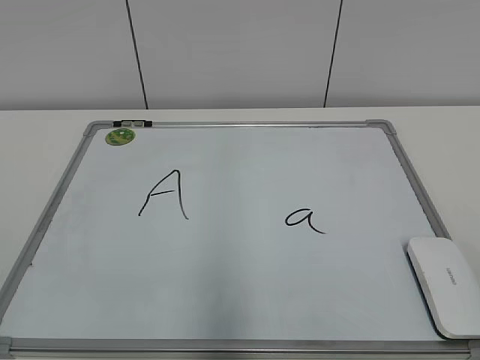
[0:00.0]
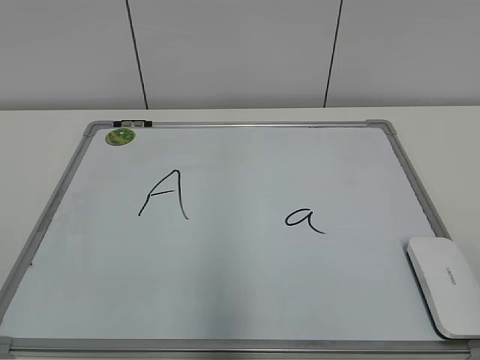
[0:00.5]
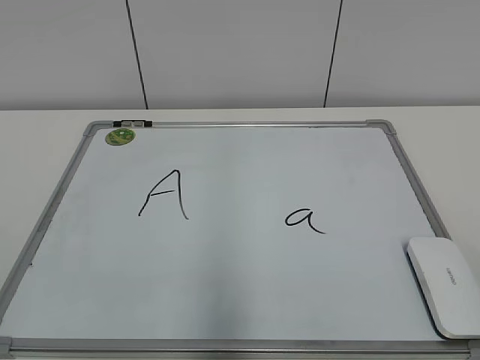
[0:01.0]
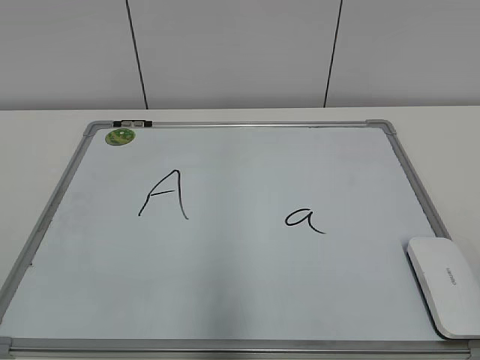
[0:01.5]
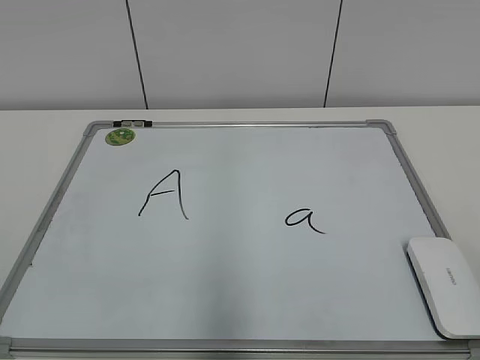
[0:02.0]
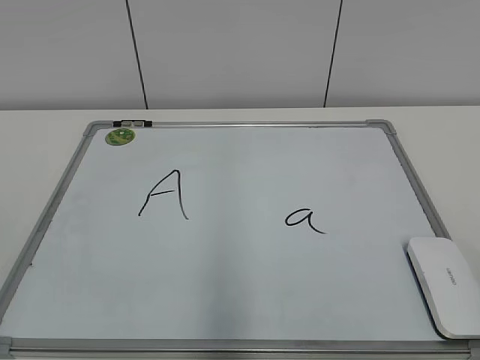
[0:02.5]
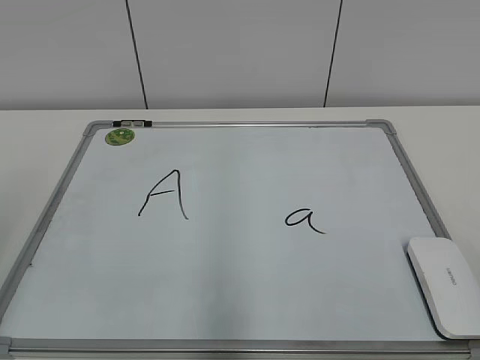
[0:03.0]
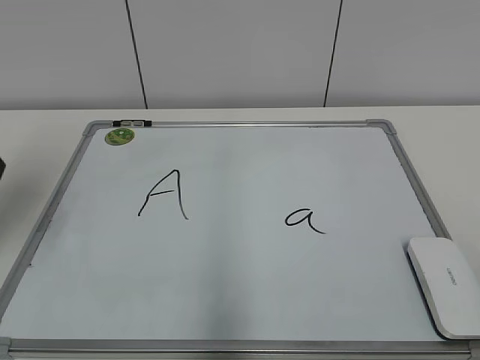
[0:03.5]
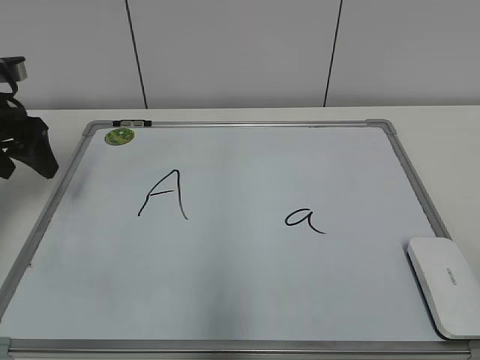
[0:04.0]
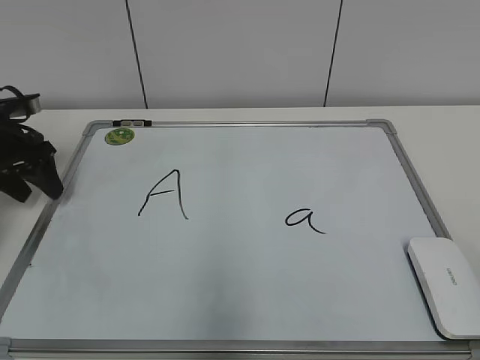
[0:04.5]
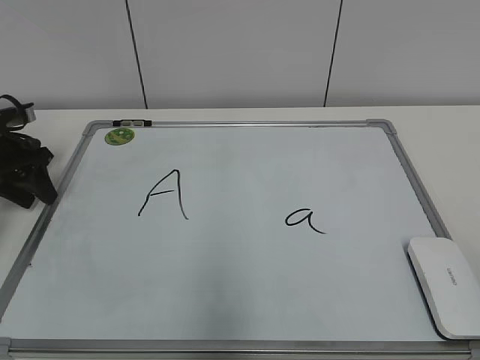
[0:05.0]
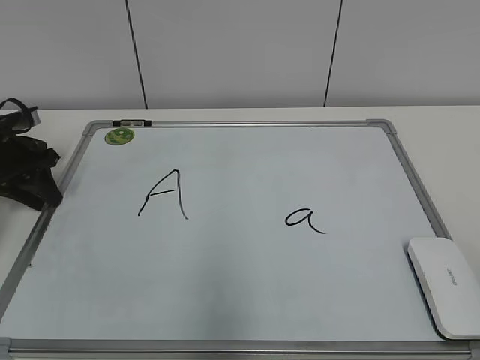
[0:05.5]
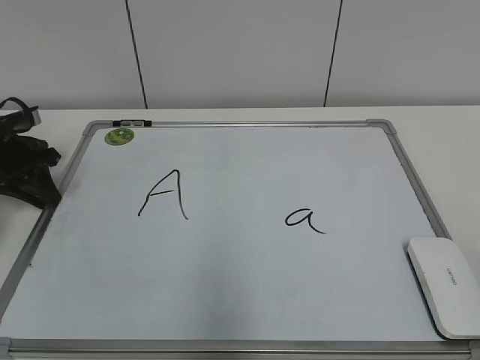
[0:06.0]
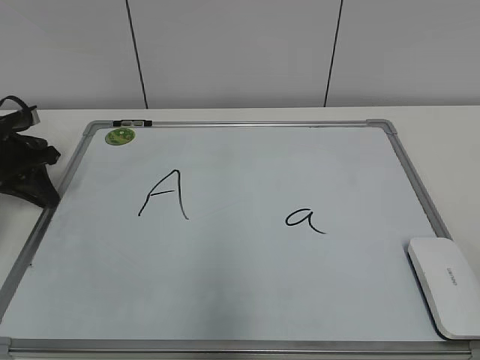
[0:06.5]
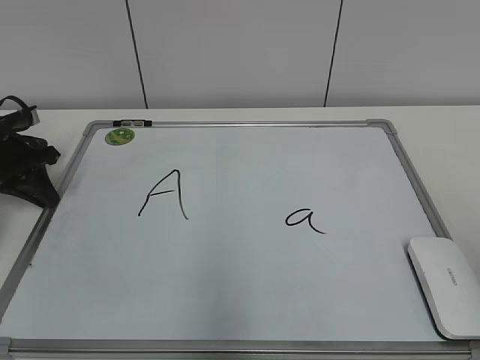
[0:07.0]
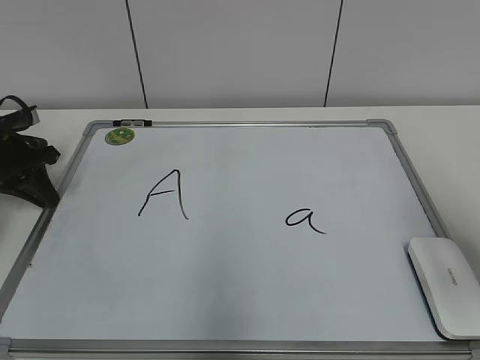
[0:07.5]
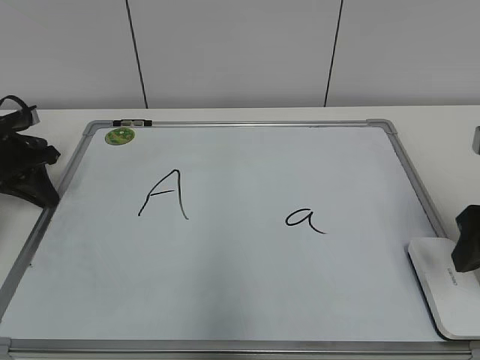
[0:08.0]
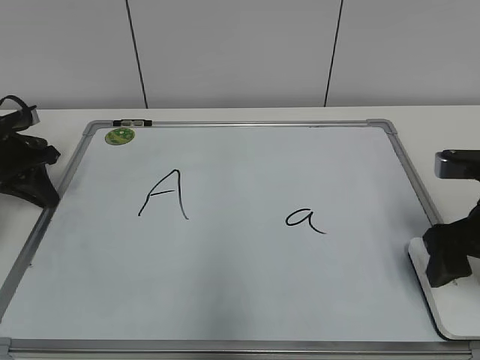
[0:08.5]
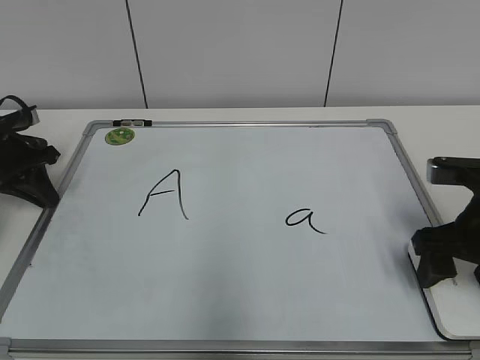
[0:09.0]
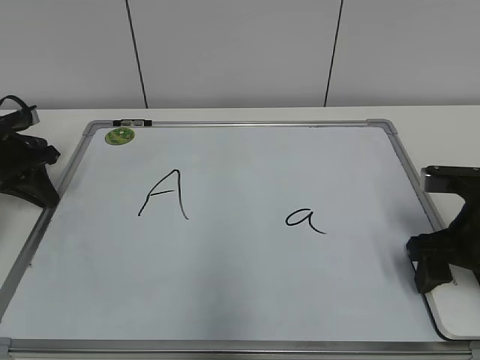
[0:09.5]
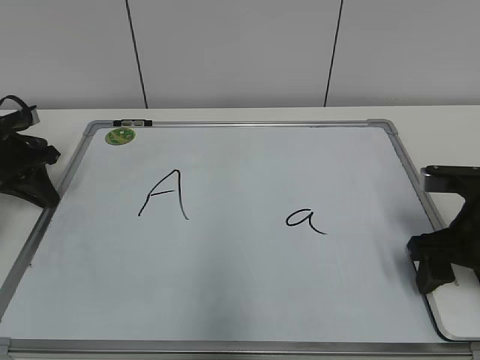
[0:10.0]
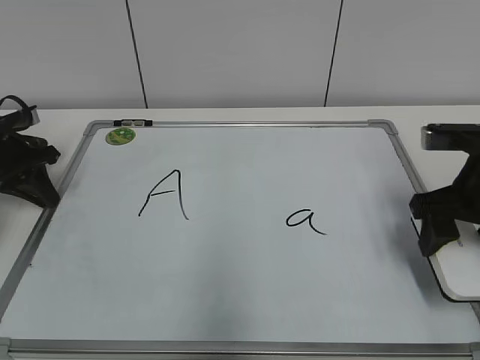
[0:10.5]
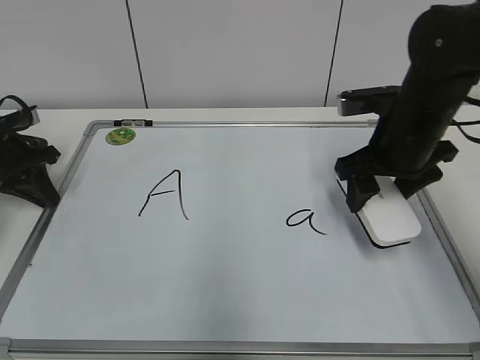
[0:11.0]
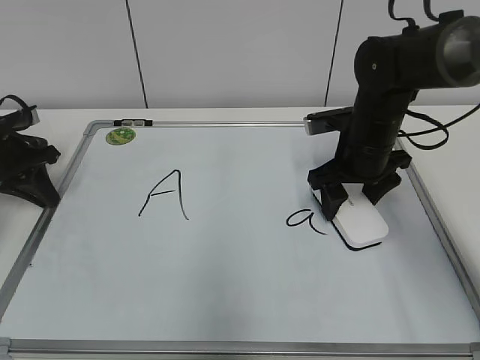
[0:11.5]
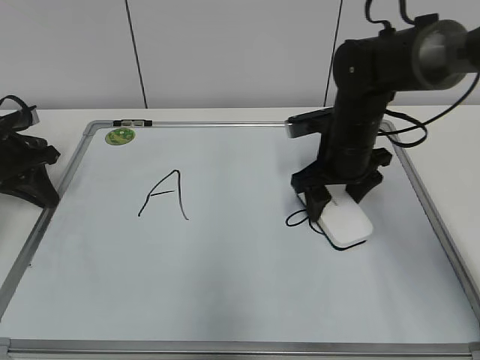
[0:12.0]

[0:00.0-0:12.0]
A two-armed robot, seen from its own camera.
Task of the whole recording: pick up the eraser on the blackboard and erase the letter "a".
Step, 0.0 to 6.0 s: Hold the drawing board steady with your left hand.
Step, 6.5 to 10.0 s: Grab the eraser with your right hand.
2.0 to 4.0 s: The left gripper goes about 40 cm forward, and opens.
4.0 to 6.0 s: The left gripper shifts about 10 cm downward, and closes its fingers.
6.0 to 8.0 s: The right gripper heads forward, covering roughly 25 cm.
8.0 to 10.0 s: The right gripper moves downward, approximately 5 cm.
10.0 to 12.0 s: The right gripper travels forward and to the left by some 15 cm.

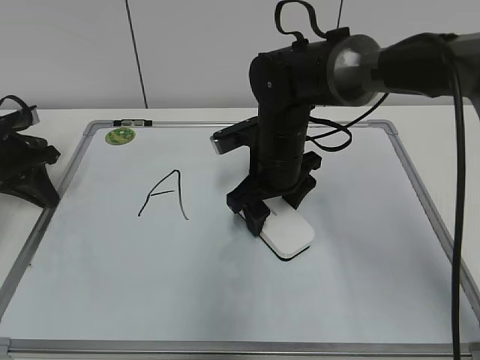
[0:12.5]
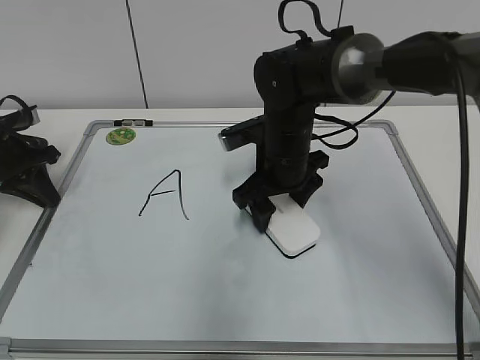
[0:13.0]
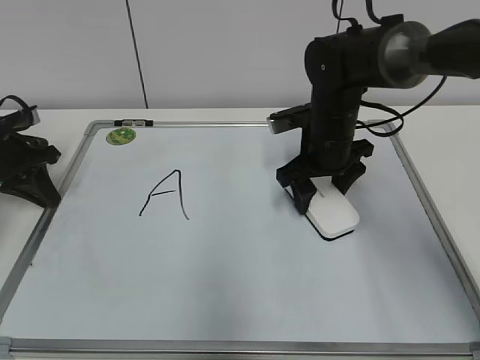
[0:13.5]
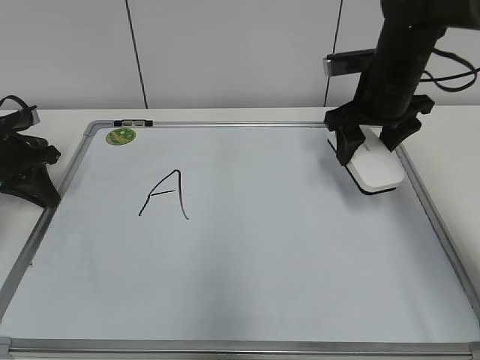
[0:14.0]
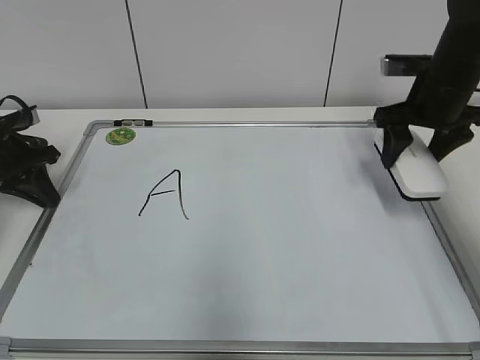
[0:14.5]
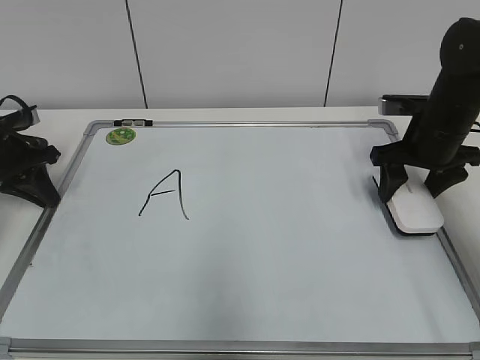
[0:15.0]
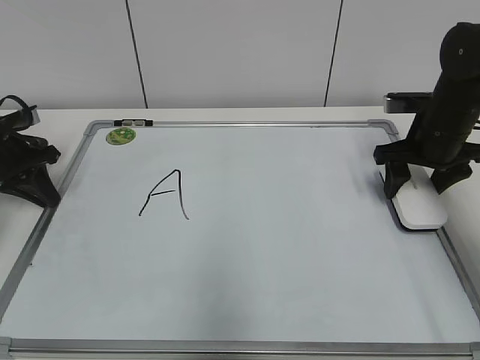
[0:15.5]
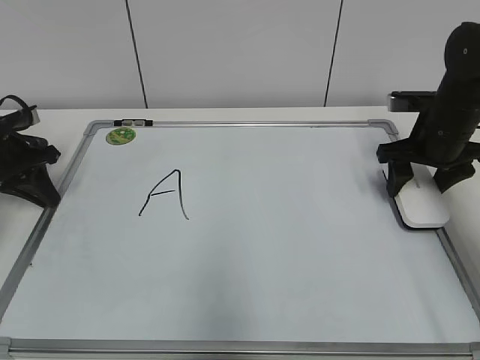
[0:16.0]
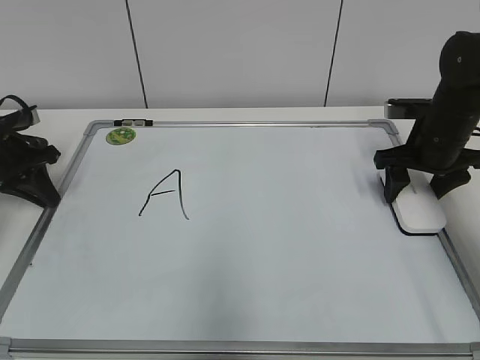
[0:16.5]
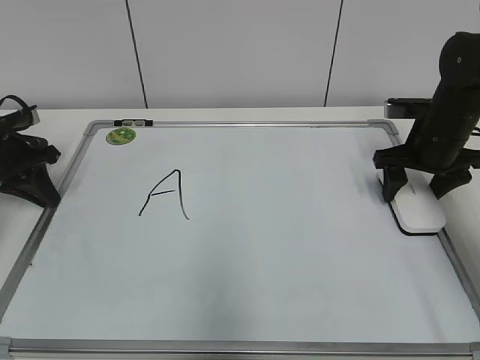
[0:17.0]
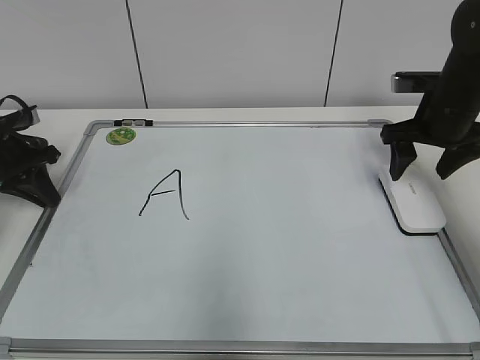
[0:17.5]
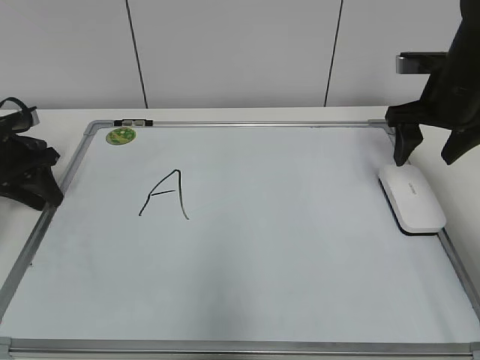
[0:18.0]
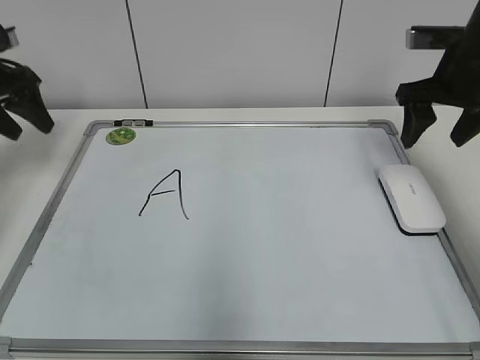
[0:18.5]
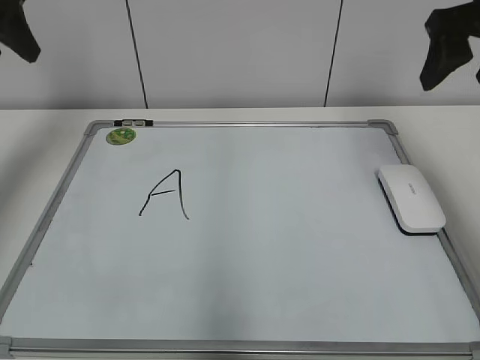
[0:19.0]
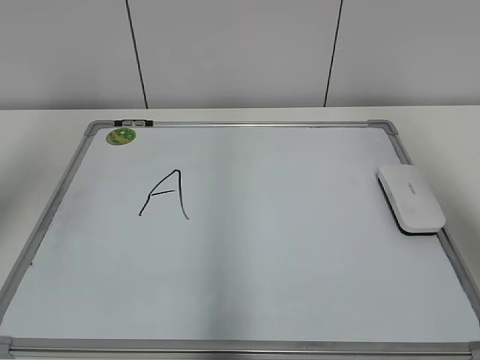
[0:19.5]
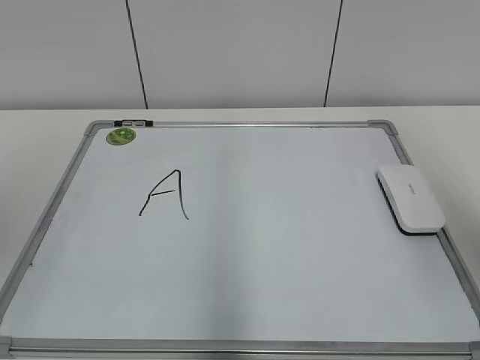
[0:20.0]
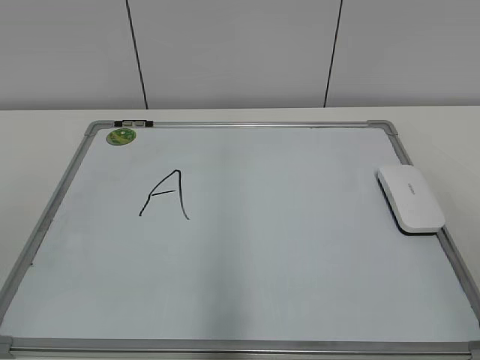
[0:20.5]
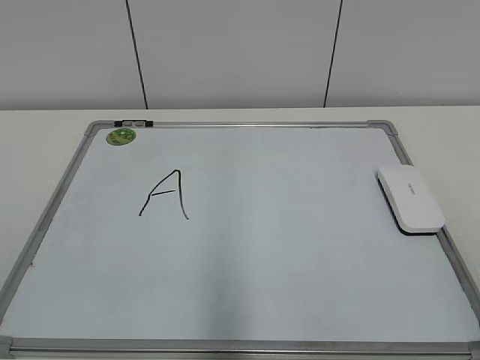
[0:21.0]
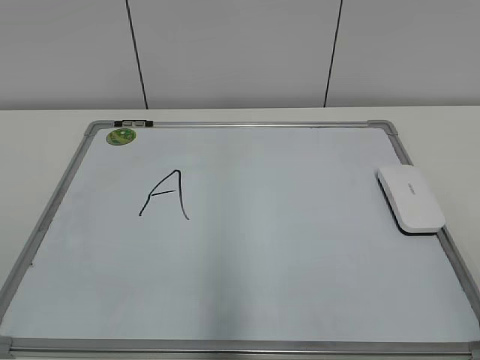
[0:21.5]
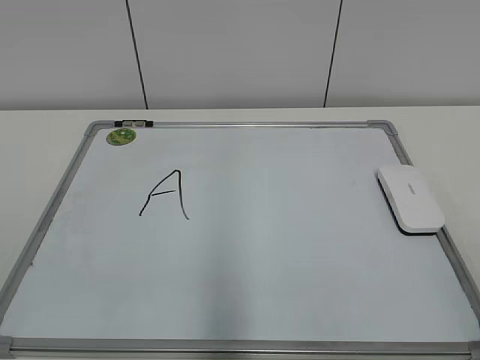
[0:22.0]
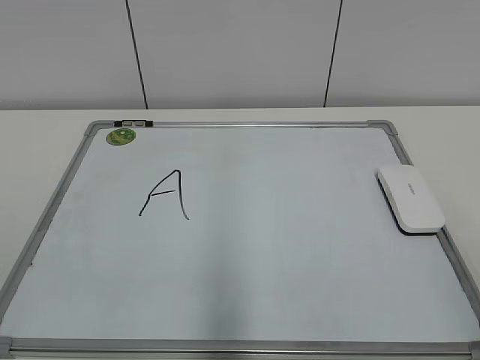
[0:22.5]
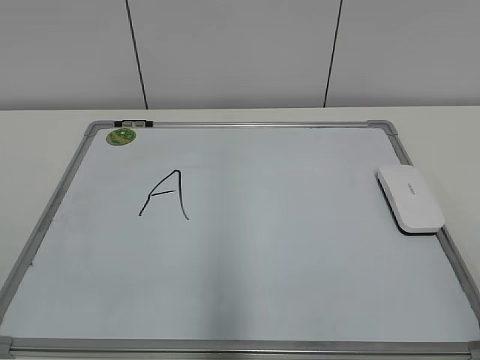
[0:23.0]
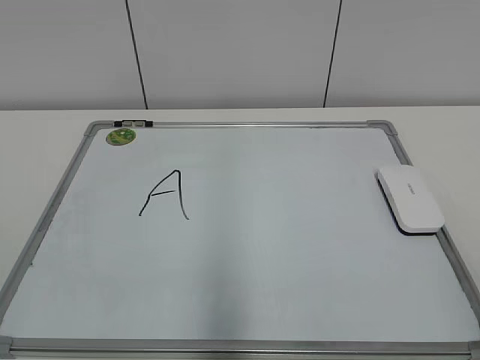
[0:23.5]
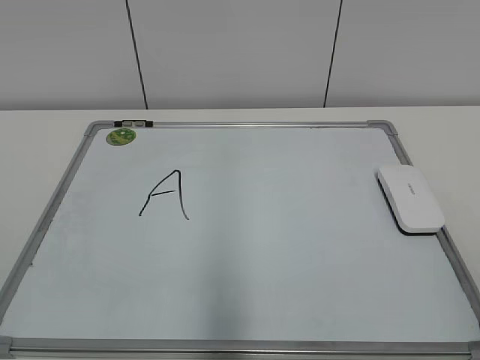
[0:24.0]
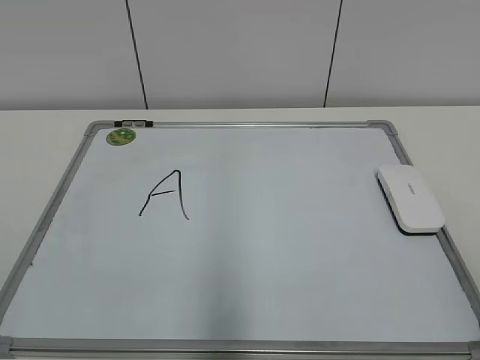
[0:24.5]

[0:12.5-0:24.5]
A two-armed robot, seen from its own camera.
Task of the whole recording: pick up the eraser on the blackboard and erase the letter "a".
Step, 14.0 to 15.5 s: Put down the eraser with your right hand.
12.5 to 14.5 s: The right gripper heads to the right, covering roughly 20 cm.
14.5 to 16.5 s: The right gripper heads downward, covering some 5 cm.
16.5 to 18.5 s: The grippers both shift upward by approximately 10 cm. The left gripper opens its fingers.
18.5 to 20.5 s: Both grippers travel together backward, about 35 cm.

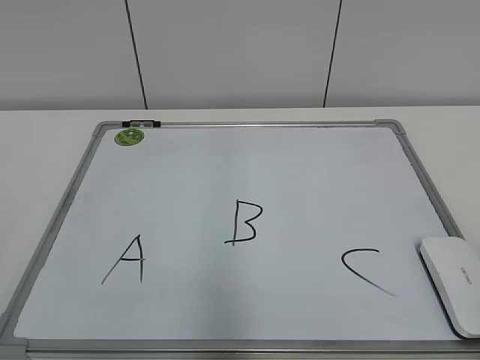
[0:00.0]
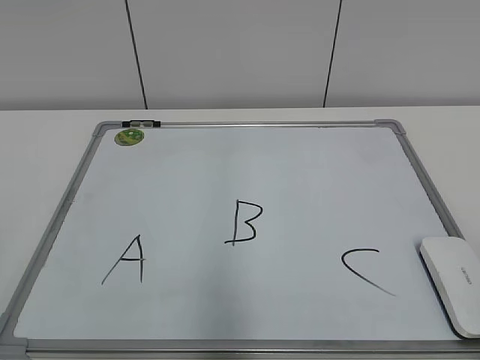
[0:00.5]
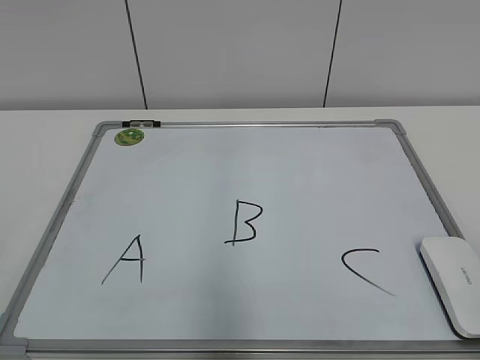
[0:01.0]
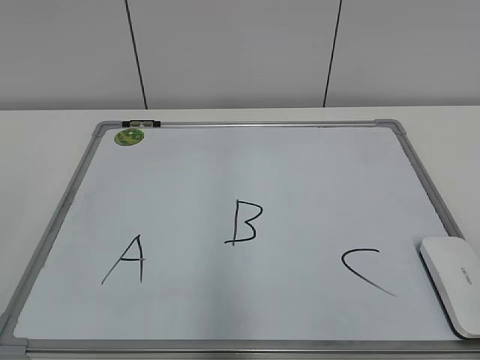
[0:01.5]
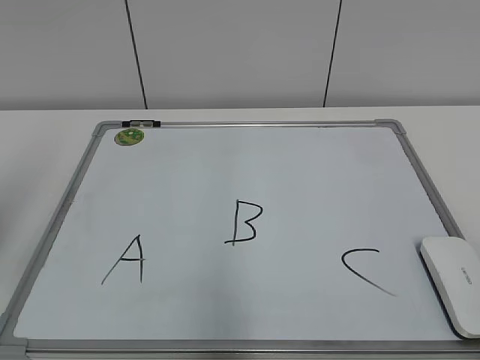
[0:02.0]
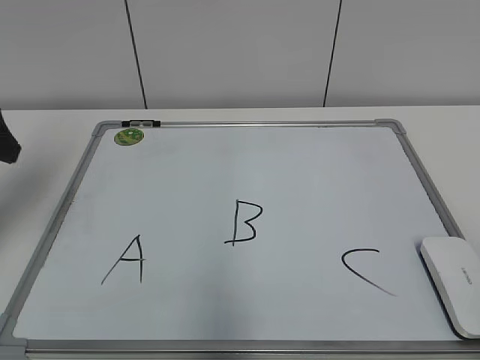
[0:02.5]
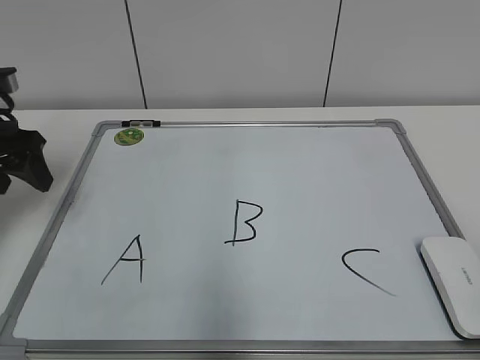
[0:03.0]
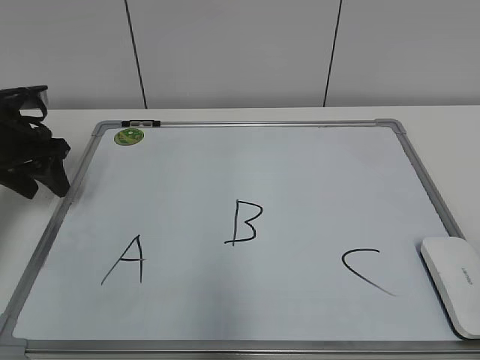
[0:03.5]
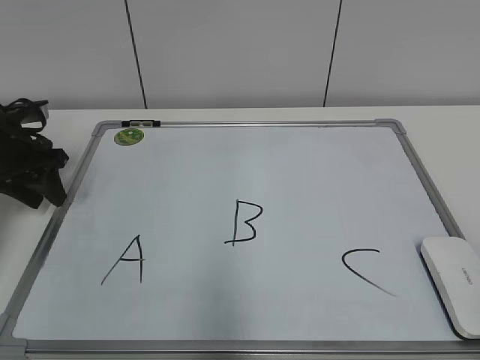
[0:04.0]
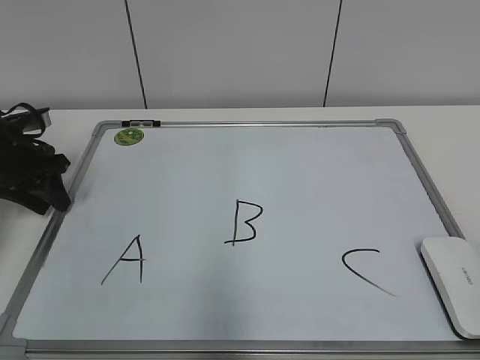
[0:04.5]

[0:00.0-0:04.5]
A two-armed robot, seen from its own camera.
Task of the whole recording: pick up the eraser on the blackboard and erase the letter "B".
2.0 to 4.5 s: The left gripper is displaced forward and downward by roughly 30 cm, and closes.
